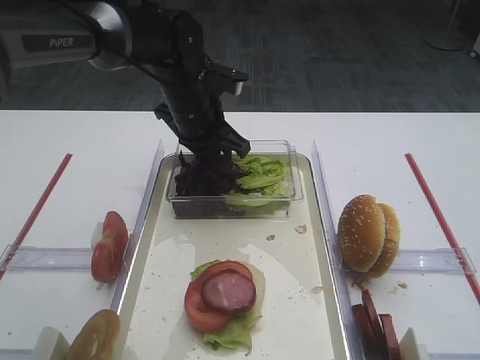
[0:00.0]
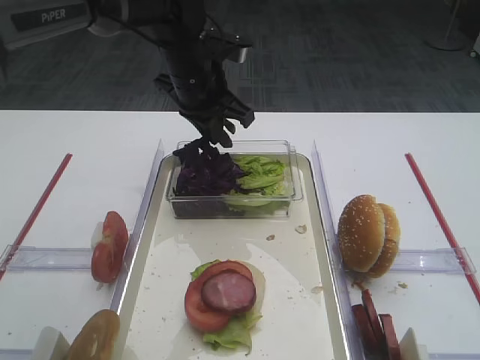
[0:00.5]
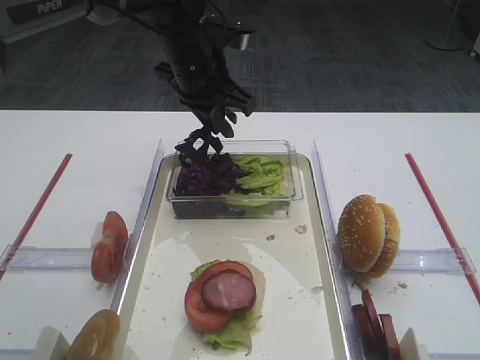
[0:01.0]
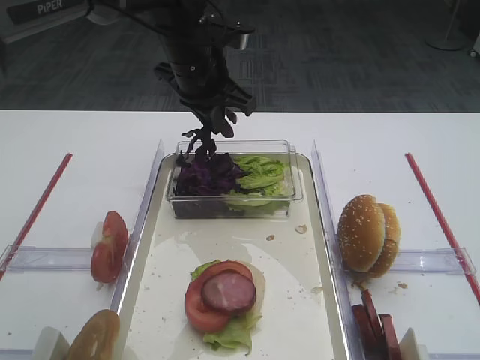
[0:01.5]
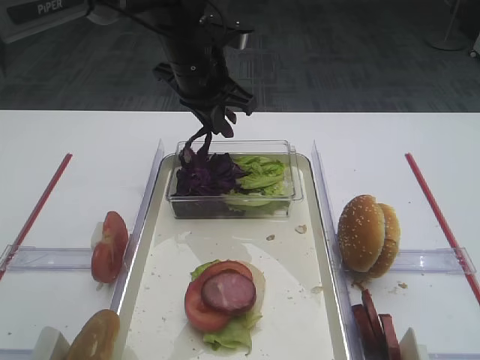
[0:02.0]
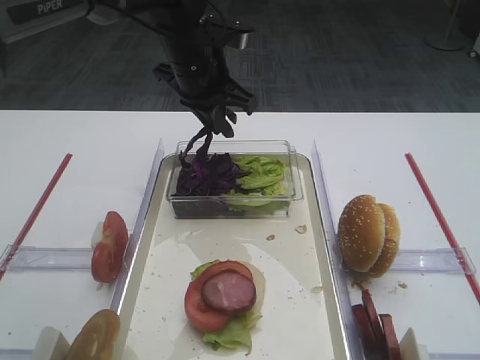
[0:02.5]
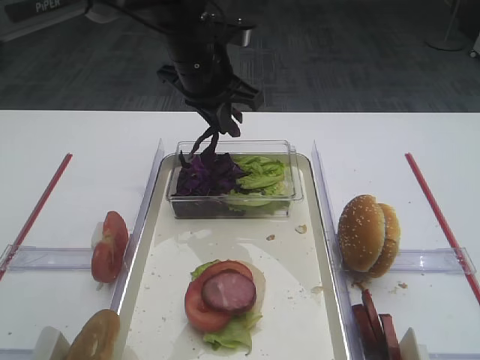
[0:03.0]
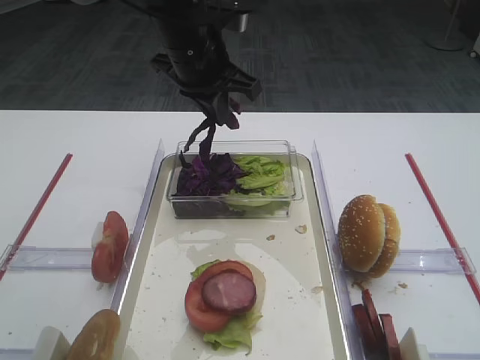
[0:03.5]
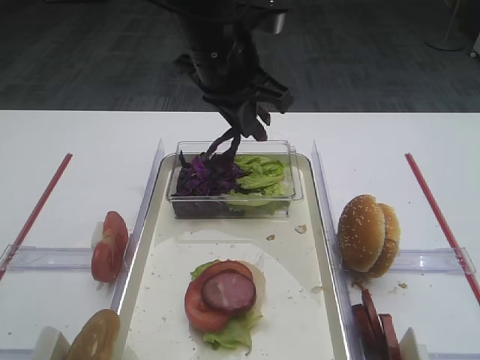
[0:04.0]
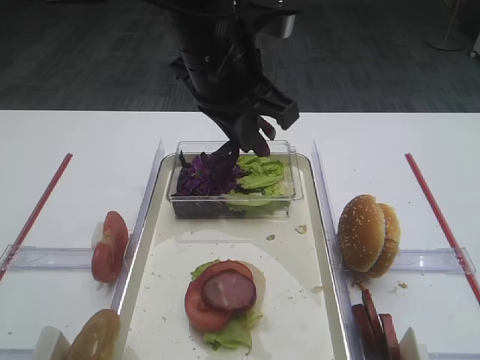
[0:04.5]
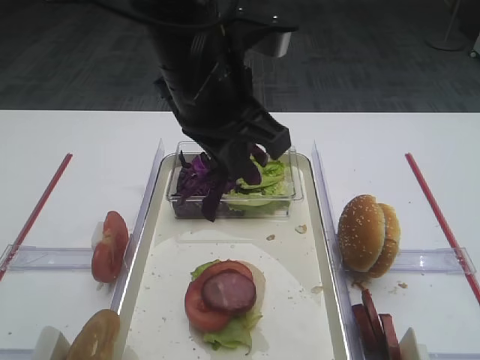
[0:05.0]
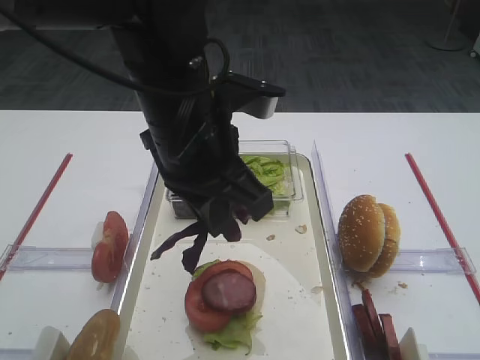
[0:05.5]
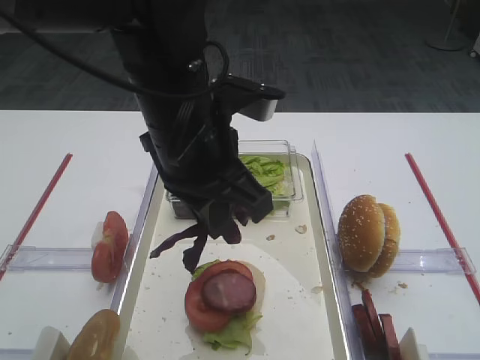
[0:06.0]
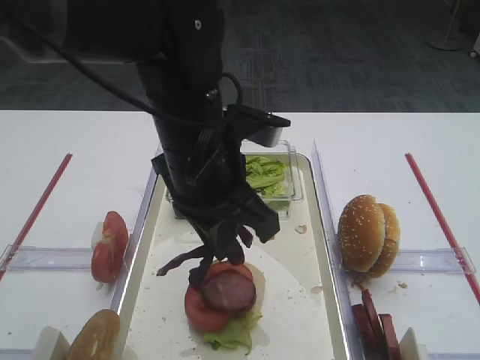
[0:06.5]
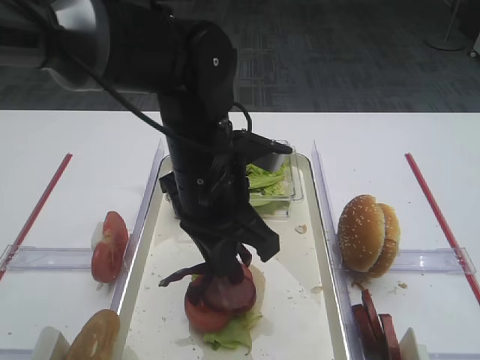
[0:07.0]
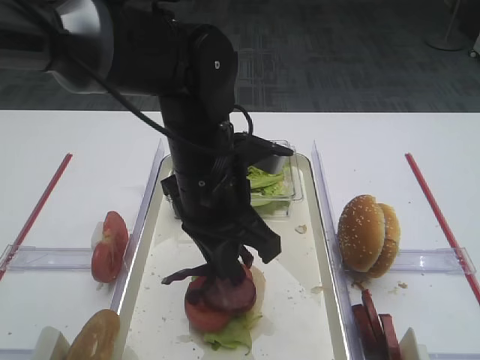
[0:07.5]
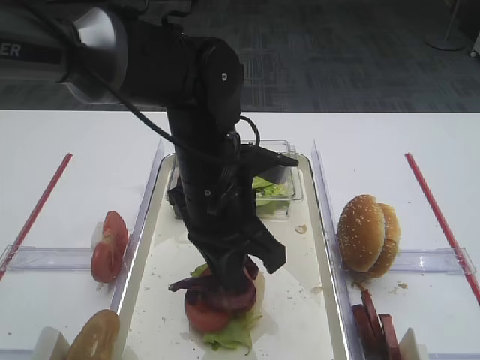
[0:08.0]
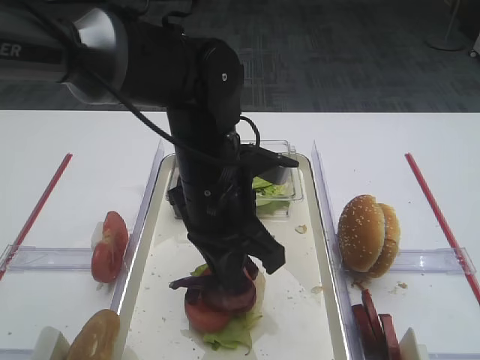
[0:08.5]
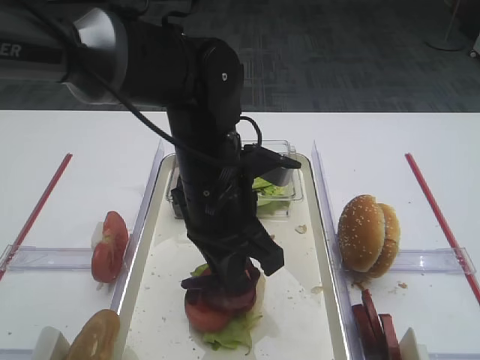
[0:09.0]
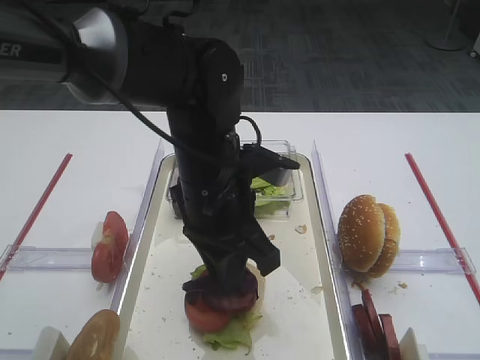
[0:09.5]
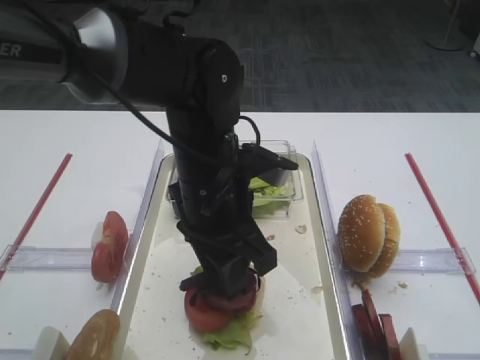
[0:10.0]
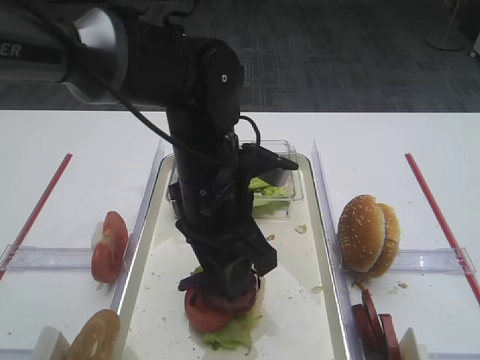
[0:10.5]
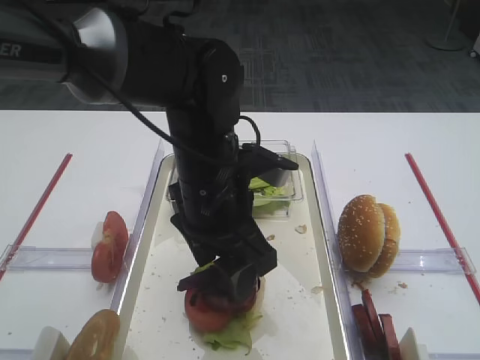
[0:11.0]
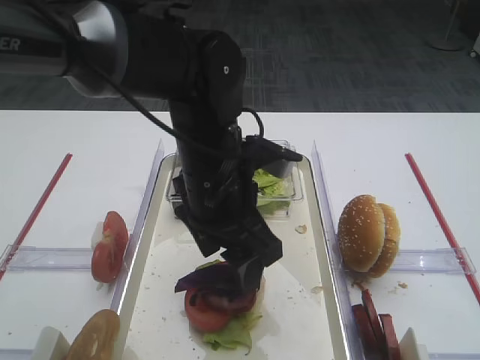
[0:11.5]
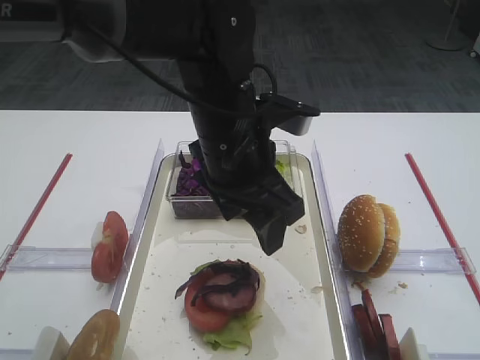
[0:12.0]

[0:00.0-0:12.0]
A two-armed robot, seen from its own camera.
Step, 0:01.5 to 0:11.5: Place the purple cabbage on the cutlet with the left gripper.
0:00.0 to 0:02.0: The left gripper shifts some 5 cm upward.
0:02.0 to 0:04.0: The left gripper shifts about 5 cm backward.
0:04.0 to 0:06.0: The left gripper shifts about 10 cm backward.
0:06.0 to 0:08.0: The left gripper heads downward, covering approximately 5 cm.
0:08.0 to 0:10.0: The left gripper opens up.
0:10.0 to 0:12.0: The left gripper opens its fingers.

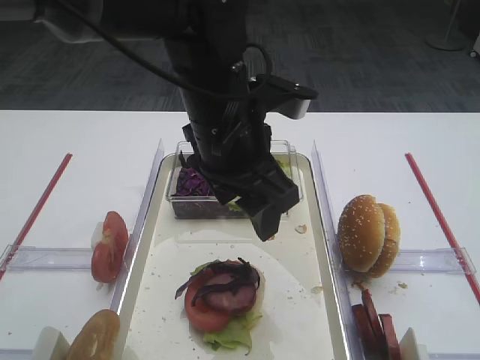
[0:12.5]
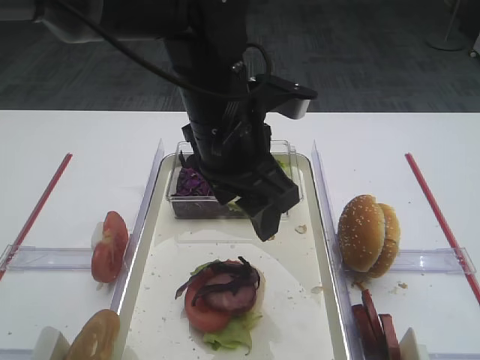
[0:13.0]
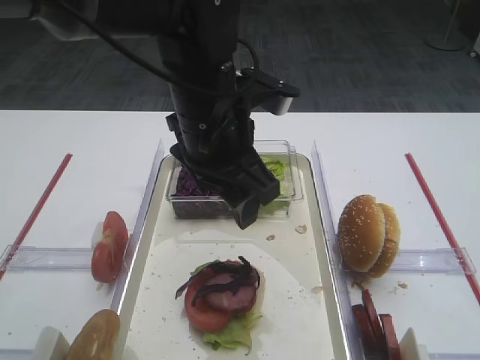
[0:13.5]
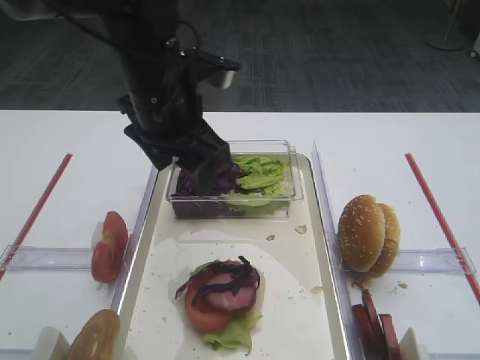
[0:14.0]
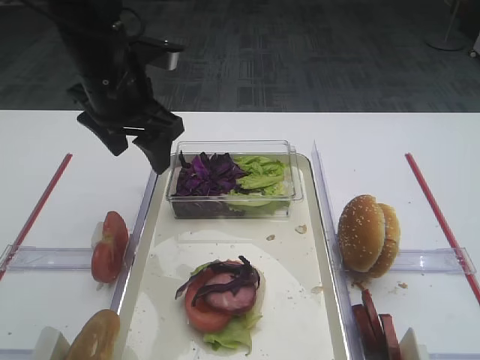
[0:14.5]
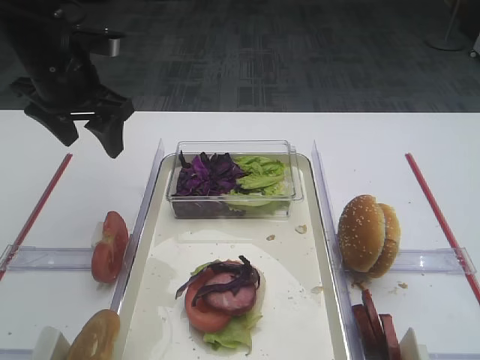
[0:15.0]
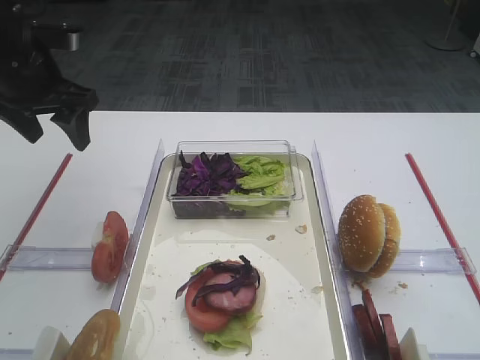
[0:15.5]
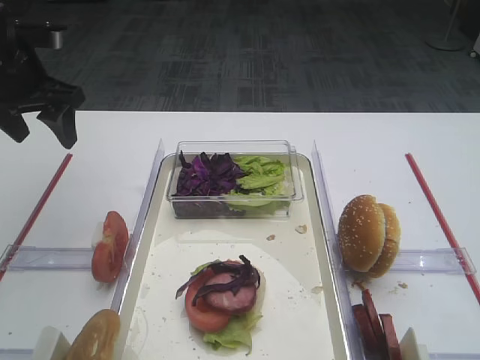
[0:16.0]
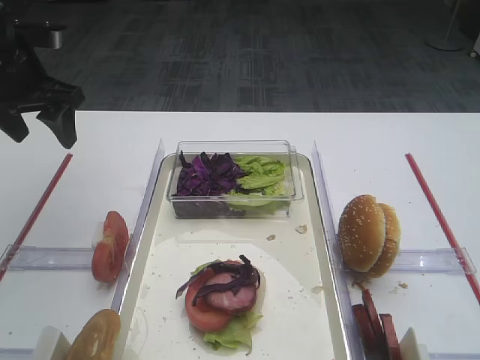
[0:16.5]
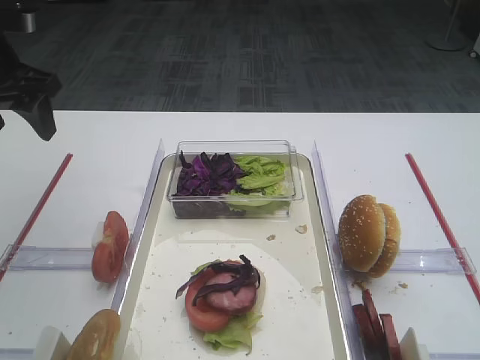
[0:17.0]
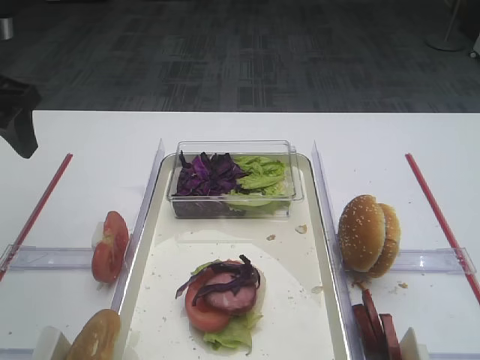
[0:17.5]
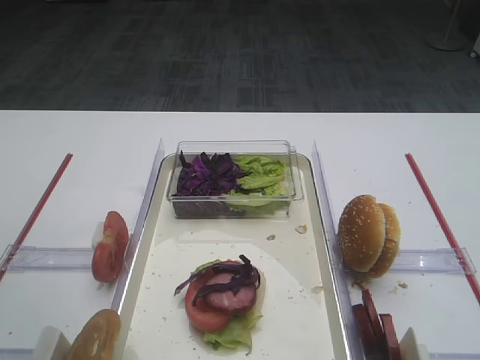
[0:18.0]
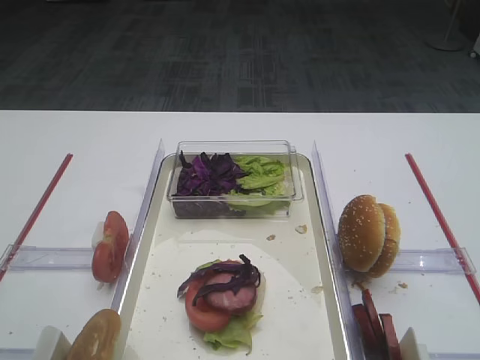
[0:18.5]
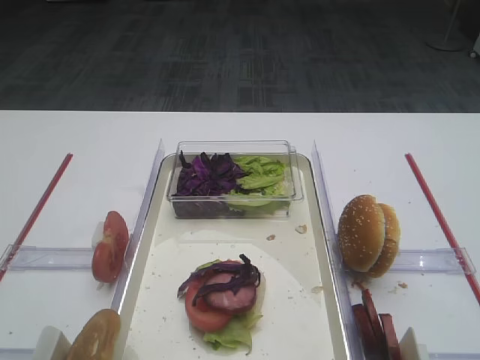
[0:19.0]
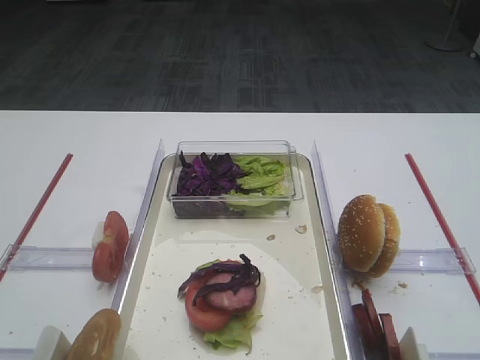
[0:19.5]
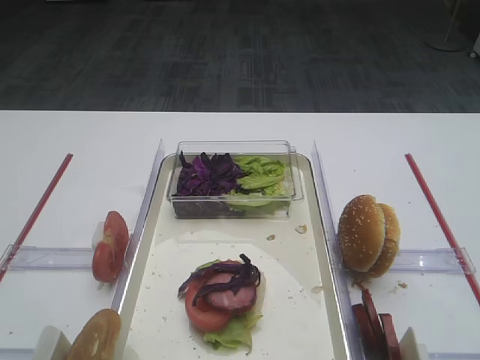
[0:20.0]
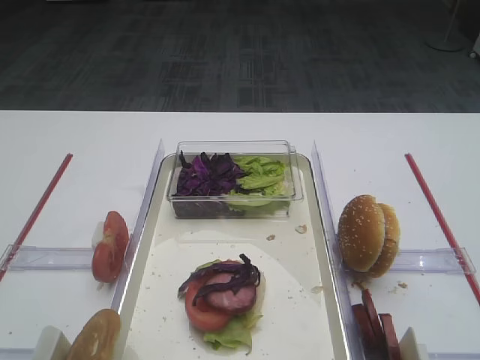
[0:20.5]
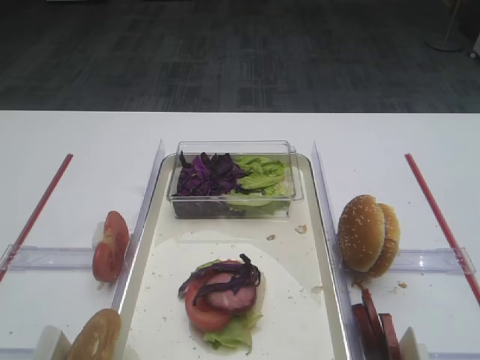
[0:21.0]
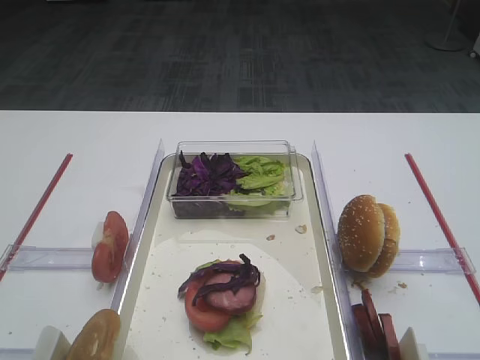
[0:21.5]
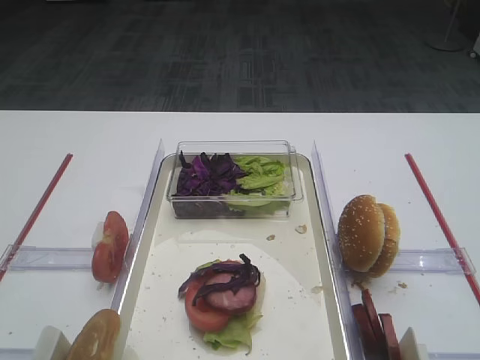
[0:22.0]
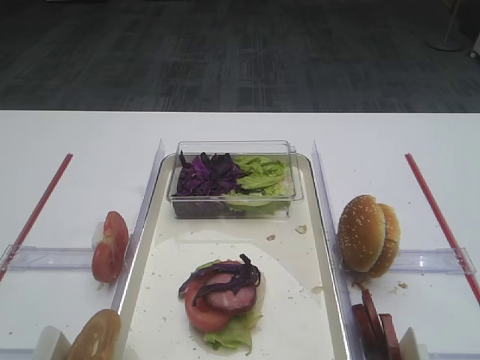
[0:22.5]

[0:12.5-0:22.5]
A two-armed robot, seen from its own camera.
0:12.5 to 0:14.5: The right gripper closes up. Meanwhile the left gripper heads to the left and forward, covering some 15 cm.
0:14.5 to 0:16.5: The left gripper travels to the left by some 15 cm.
0:16.5 to 0:18.5: The left gripper heads backward, covering roughly 30 cm.
0:20.5 to 0:22.5: The two grippers keep their place.

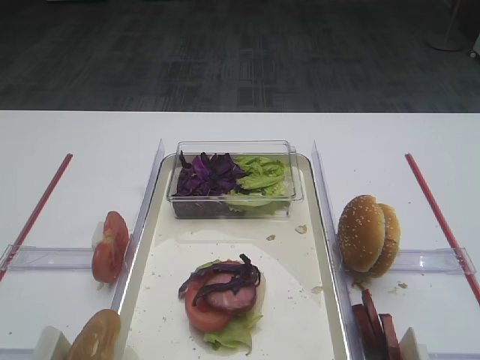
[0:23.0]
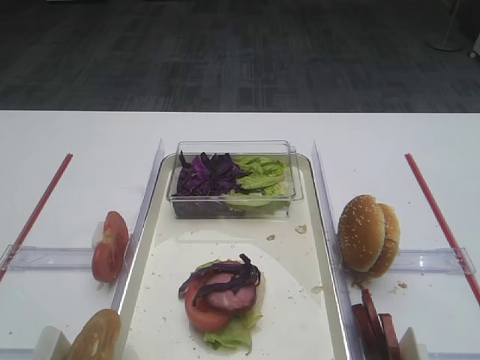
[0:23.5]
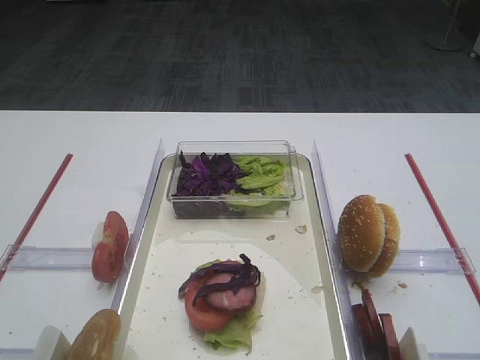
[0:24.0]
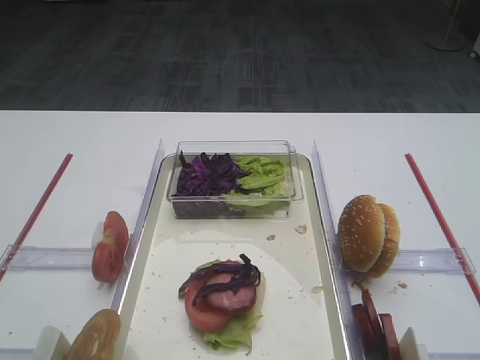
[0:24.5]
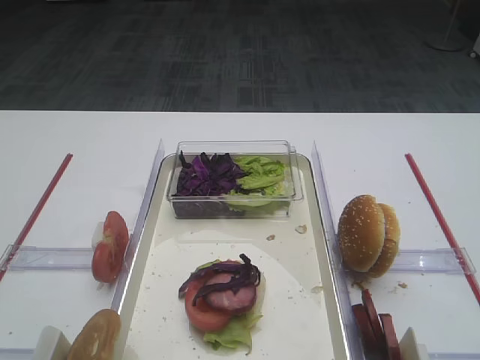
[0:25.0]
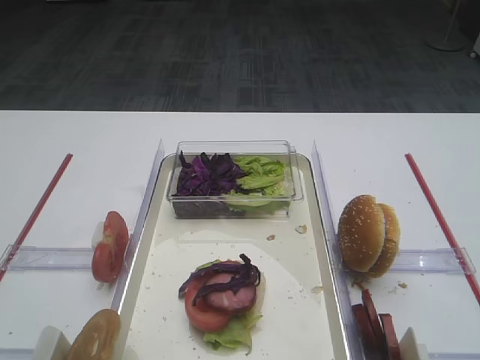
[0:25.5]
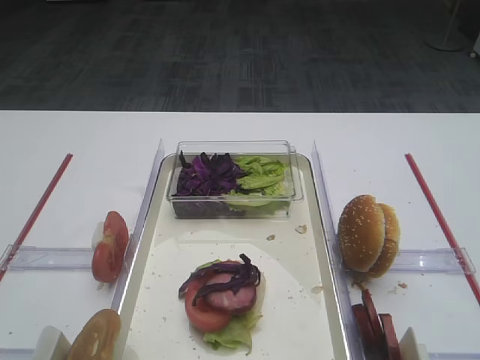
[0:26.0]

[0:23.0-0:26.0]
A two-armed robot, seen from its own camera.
0:23.0 to 0:26.0: Both grippers stay about where they are.

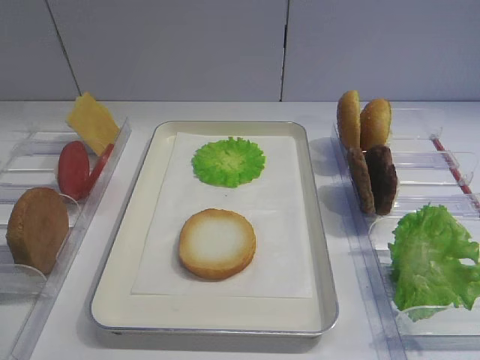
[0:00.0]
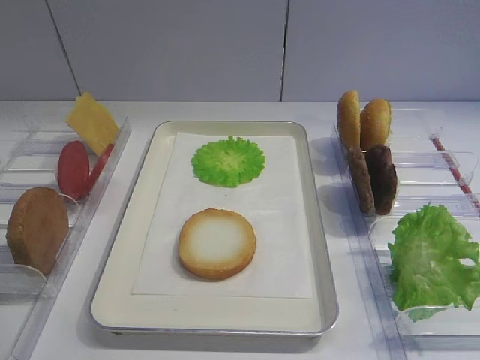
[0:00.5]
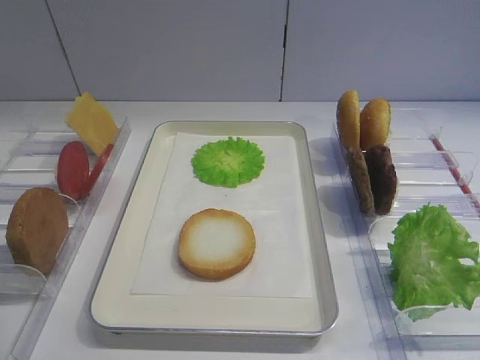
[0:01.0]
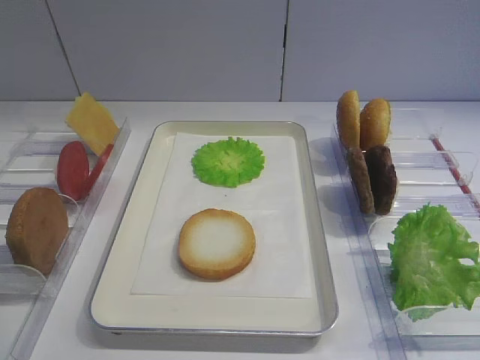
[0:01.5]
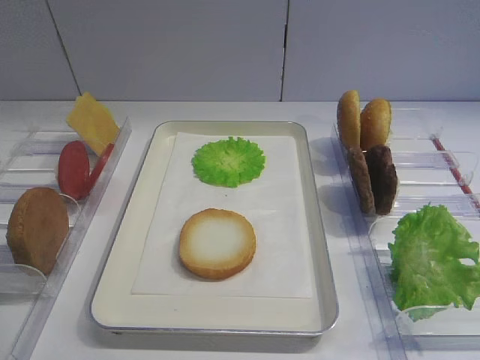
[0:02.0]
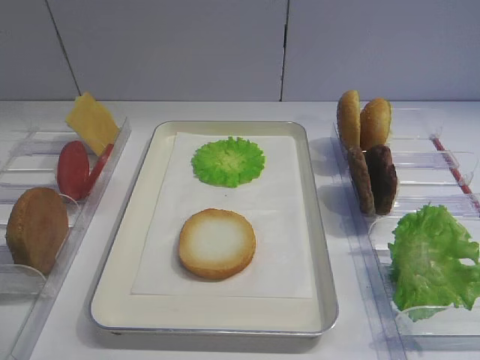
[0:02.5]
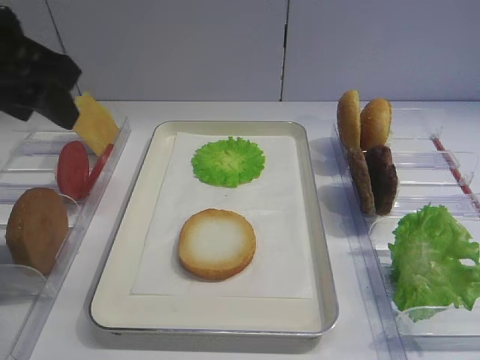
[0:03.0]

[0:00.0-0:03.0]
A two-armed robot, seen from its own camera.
0:01.5 to 0:03.0: The left gripper moves forward, roughly 30 cm, and opens its fingers.
